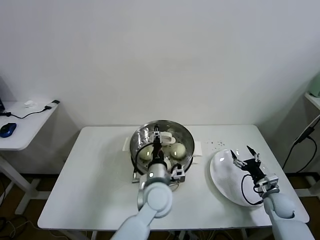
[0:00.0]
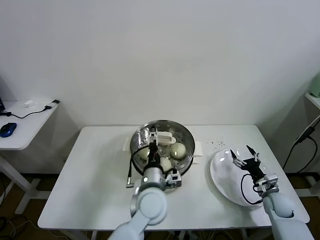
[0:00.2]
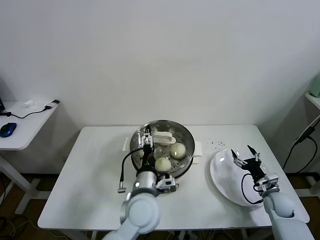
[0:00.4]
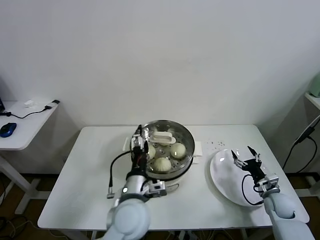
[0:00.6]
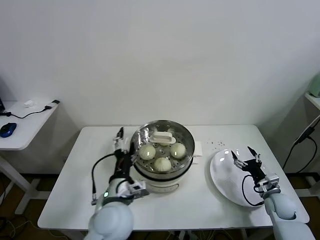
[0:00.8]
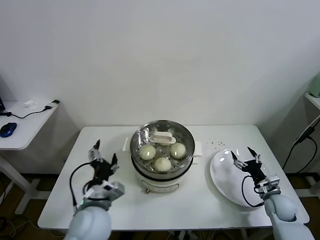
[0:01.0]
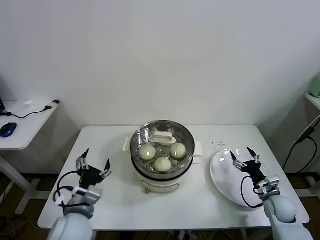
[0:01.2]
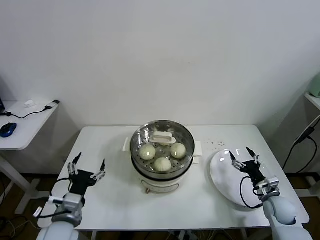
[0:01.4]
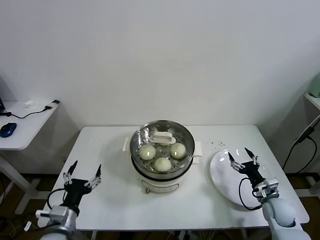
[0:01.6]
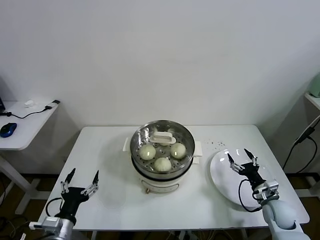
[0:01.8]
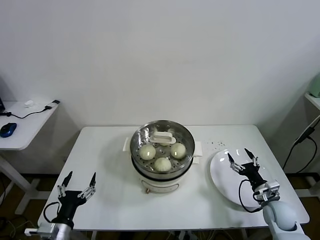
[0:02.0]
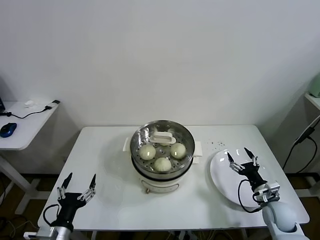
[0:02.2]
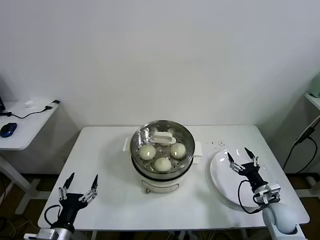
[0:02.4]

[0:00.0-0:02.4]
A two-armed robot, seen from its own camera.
Task of the whole recording: take steamed baozi put them in steamer.
0:00.0 to 0:01.2: The left gripper shifts some 20 cm to the left and backward, and opens up.
0:01.2 to 0:02.4: The left gripper heads to the left, backward and downward, covering approximately 15 cm.
